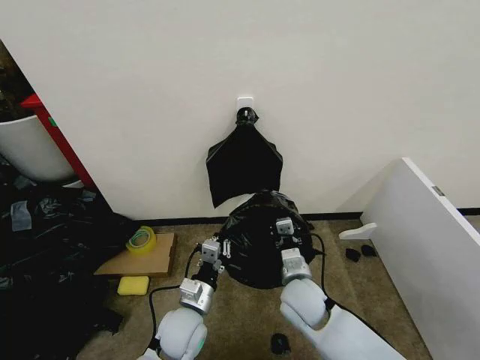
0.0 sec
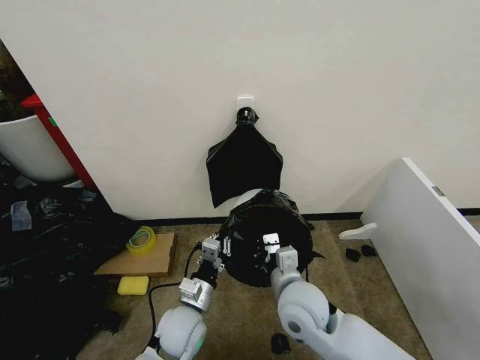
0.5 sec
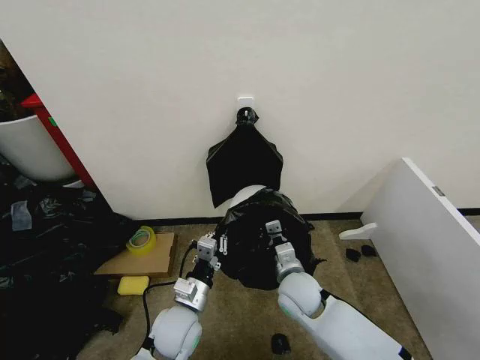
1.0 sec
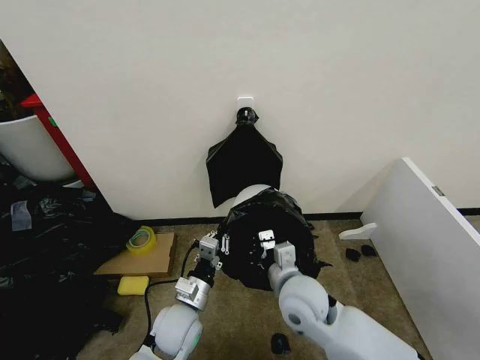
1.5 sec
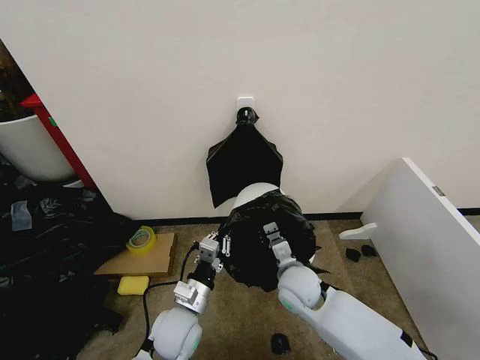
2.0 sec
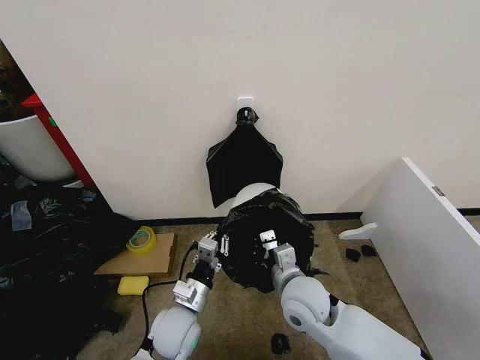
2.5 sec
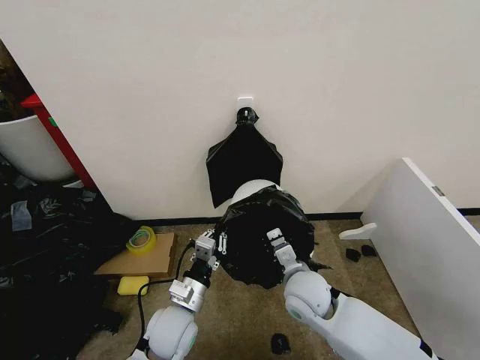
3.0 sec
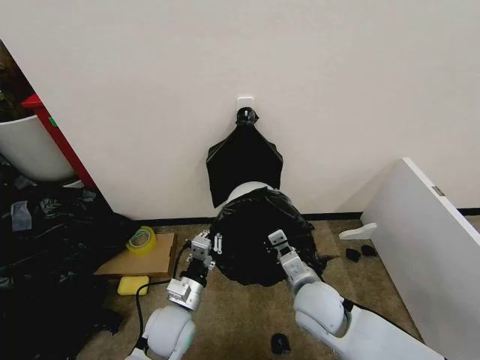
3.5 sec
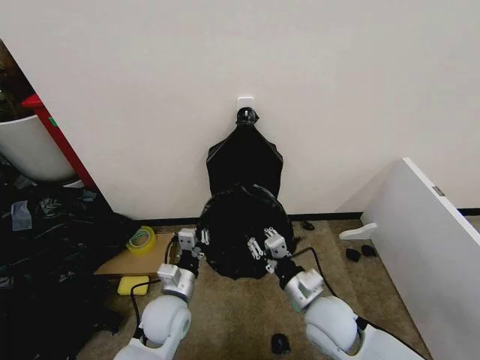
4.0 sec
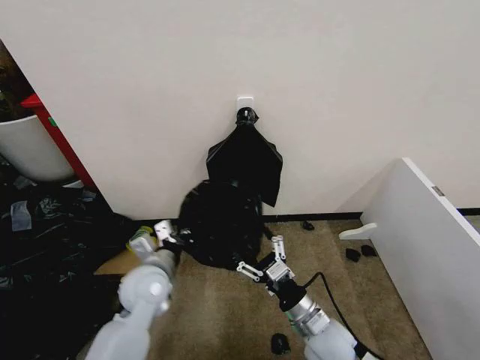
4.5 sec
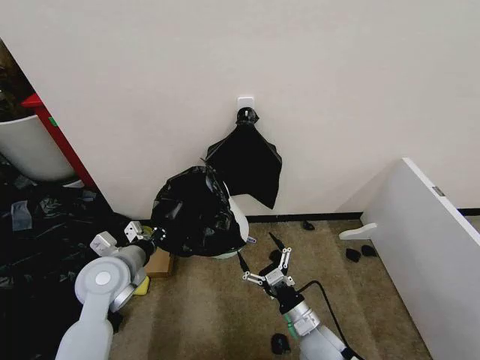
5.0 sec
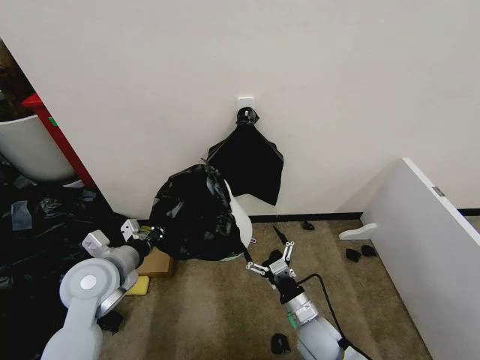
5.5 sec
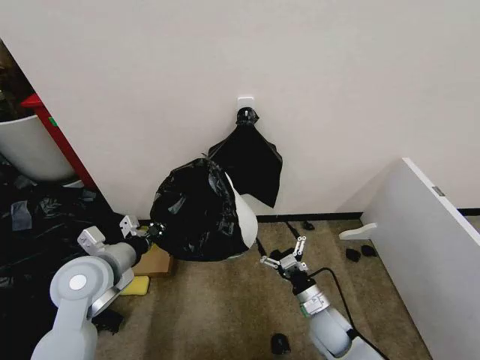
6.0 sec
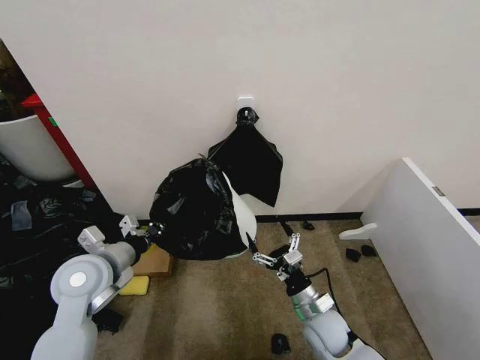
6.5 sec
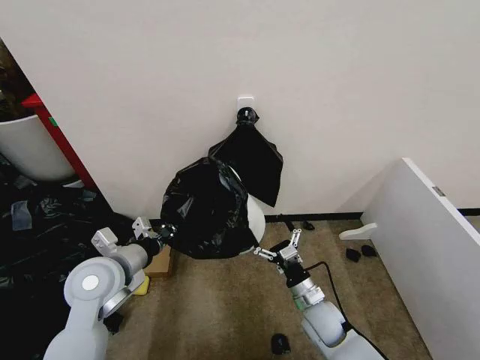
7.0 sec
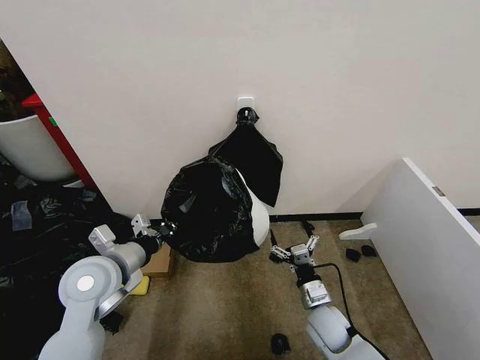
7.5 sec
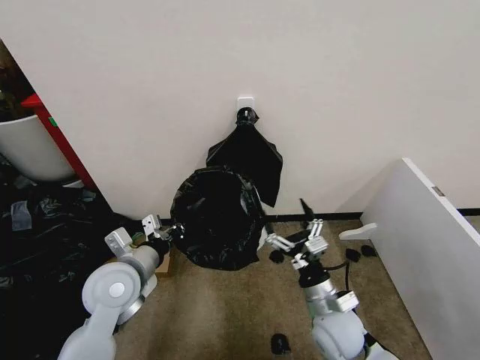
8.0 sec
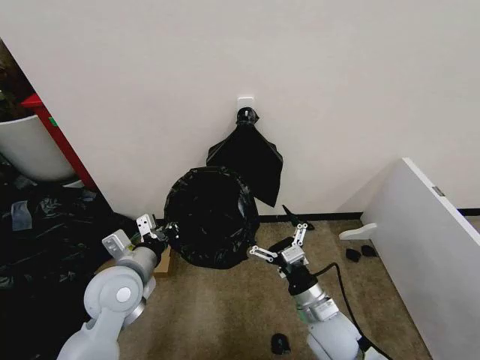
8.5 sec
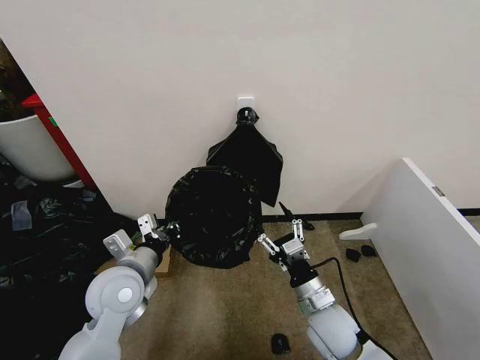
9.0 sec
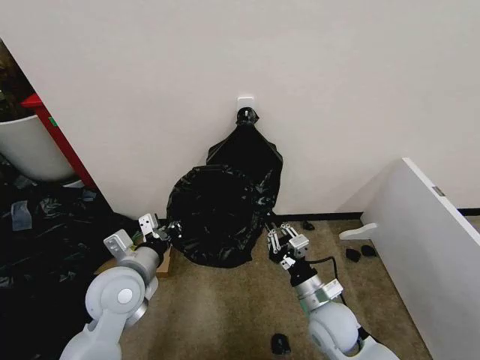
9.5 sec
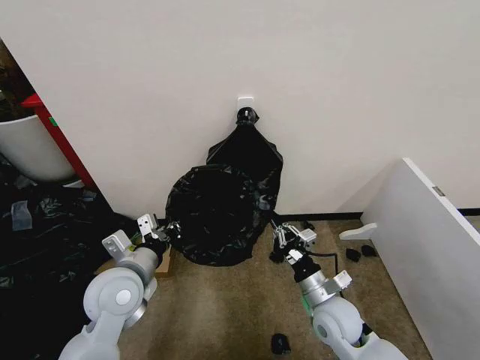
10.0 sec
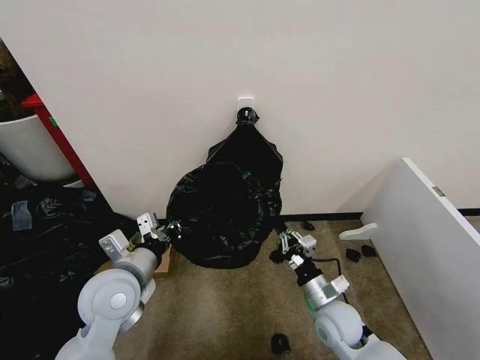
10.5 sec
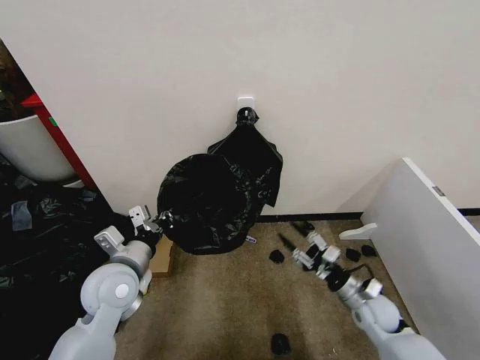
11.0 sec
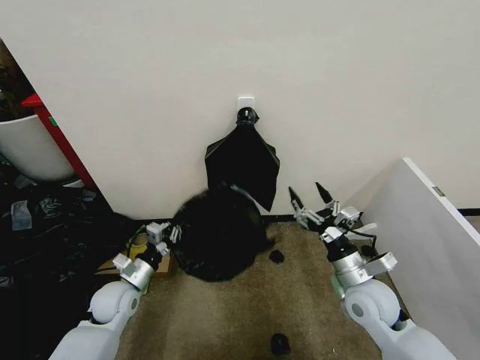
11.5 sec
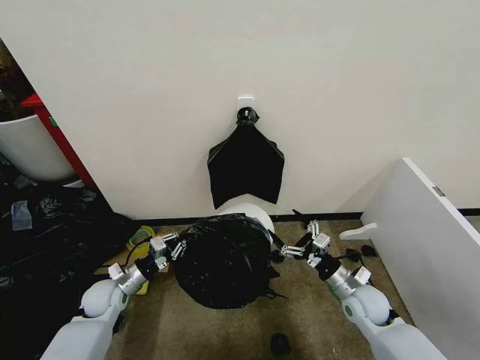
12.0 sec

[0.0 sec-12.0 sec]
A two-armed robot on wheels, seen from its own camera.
Task of the whole recording: Place the garbage bag over the trash bin.
0.0 sec to 2.0 sec: The right gripper goes up and down, roughly 10 cm each way, reversing 3 times.
2.0 sec to 4.0 sec: The right gripper shifts roughly 10 cm backward.
4.0 sec to 6.0 sec: The right gripper shifts approximately 15 cm downward, and opens its fingers. Meanwhile the left gripper travels upward and to the left by about 20 cm.
6.0 sec to 8.0 sec: The right gripper moves upward, approximately 10 cm.
8.0 sec to 10.0 sec: The right gripper closes up.
10.0 sec to 12.0 sec: The right gripper heads to the right, covering roughly 10 cm, and opens up, while the left gripper heads downward and to the left, covering about 20 cm.

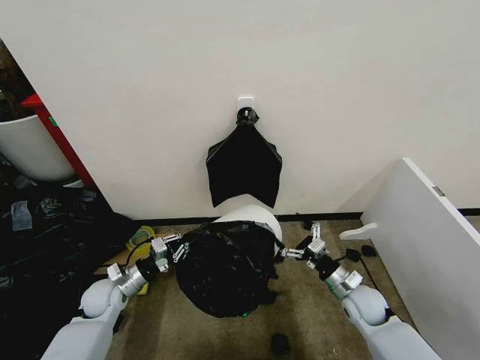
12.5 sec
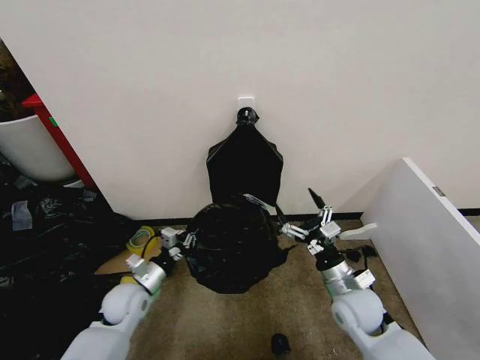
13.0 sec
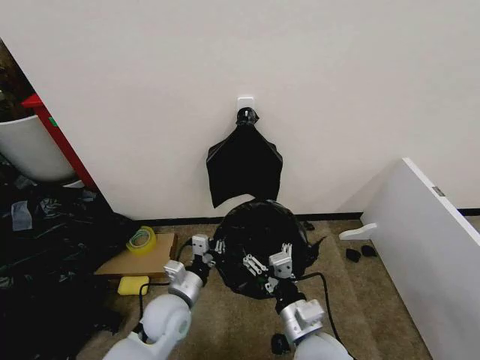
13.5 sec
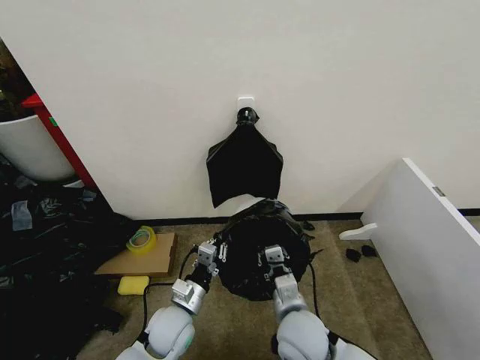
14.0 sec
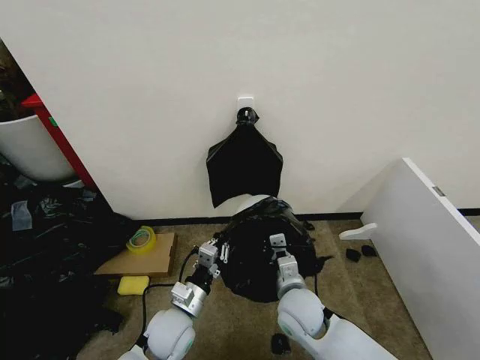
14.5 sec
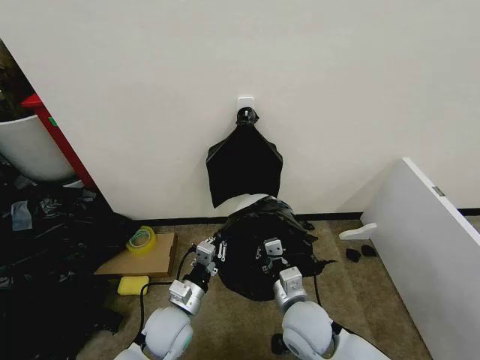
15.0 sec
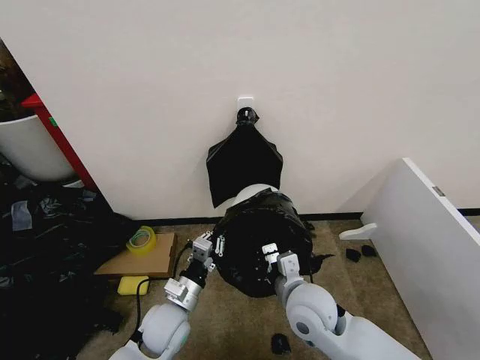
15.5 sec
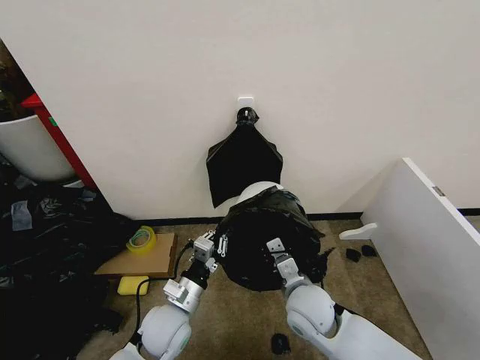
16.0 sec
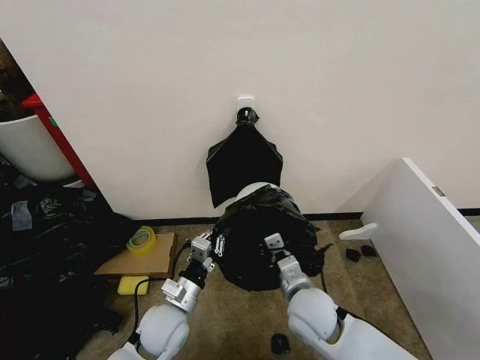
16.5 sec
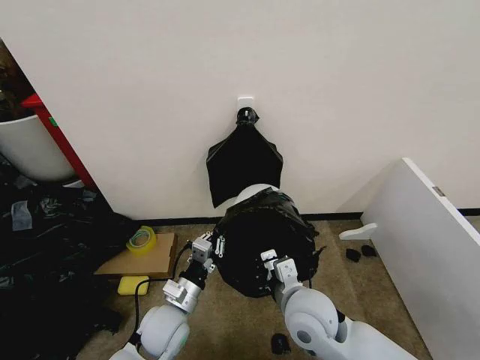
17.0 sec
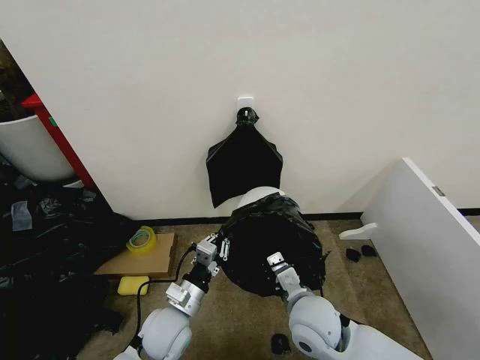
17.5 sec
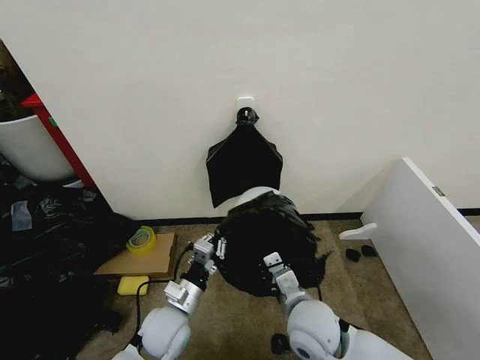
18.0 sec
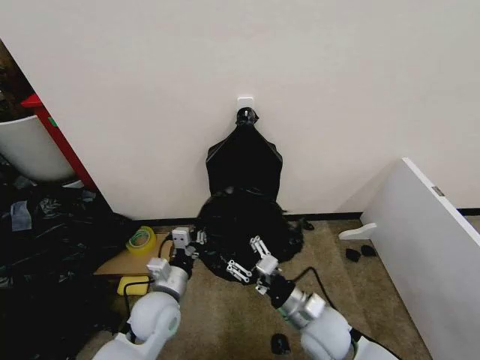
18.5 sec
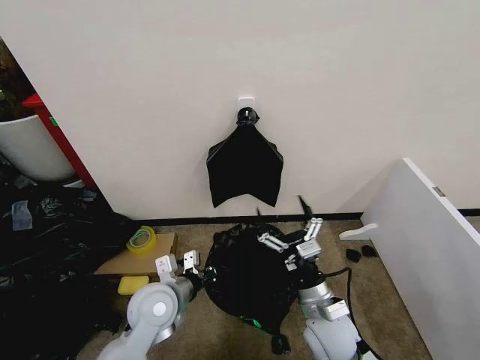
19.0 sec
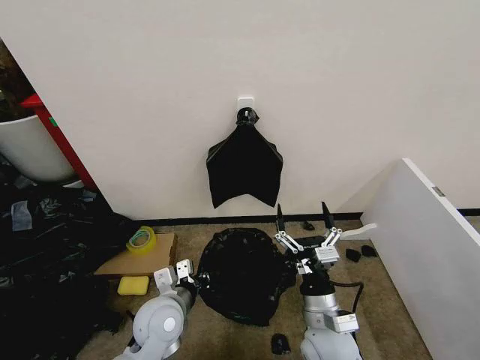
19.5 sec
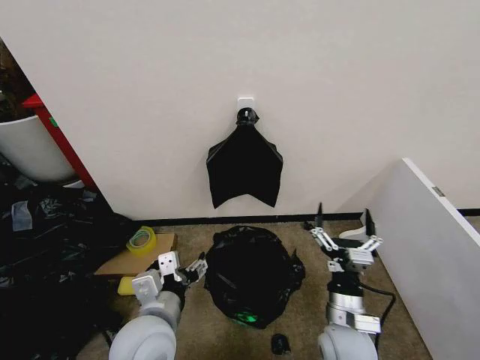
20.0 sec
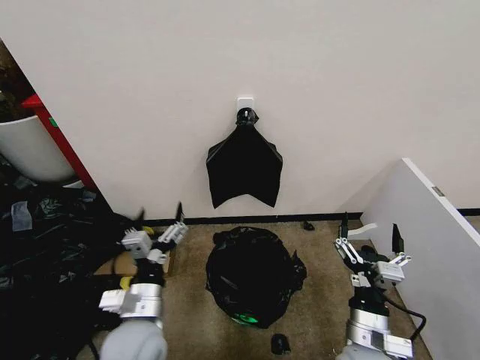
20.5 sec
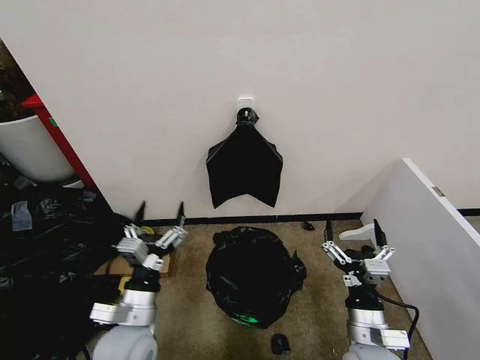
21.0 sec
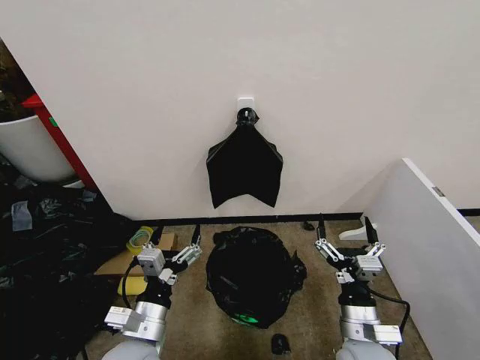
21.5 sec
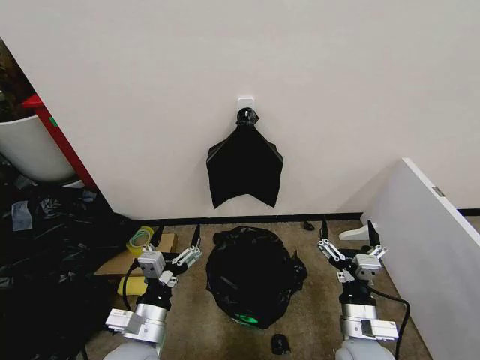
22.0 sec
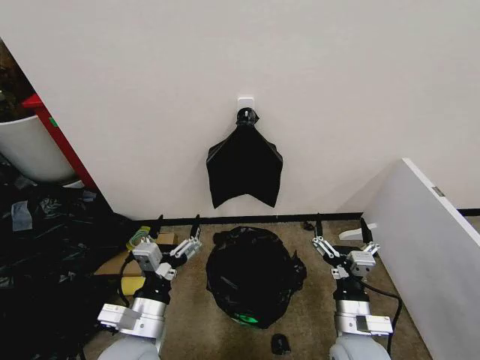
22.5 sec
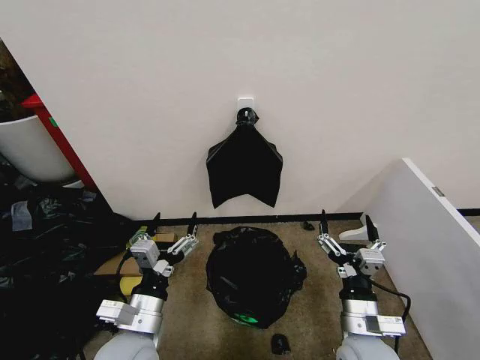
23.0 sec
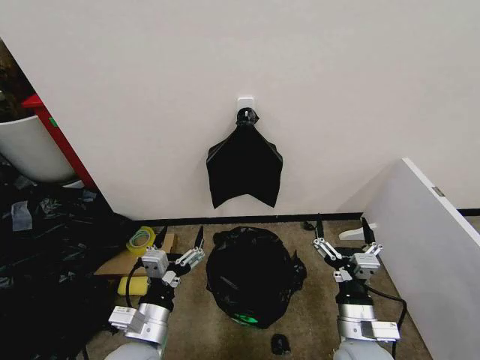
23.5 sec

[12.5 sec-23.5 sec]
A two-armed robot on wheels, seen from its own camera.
Task of the whole recording: Place the garbage bag over the trash bin.
12.5 sec to 14.5 sec: The left gripper goes some 20 cm to the right and backward, while the right gripper is displaced to the left by some 20 cm, and closes.
18.0 sec to 20.0 sec: The left gripper moves upward and backward, roughly 15 cm, and opens its fingers. The right gripper shifts some 5 cm to the right, and opens its fingers.
20.0 sec to 21.5 sec: The left gripper goes roughly 5 cm downward.
21.5 sec to 23.5 sec: There are only small adjustments of the grippers.

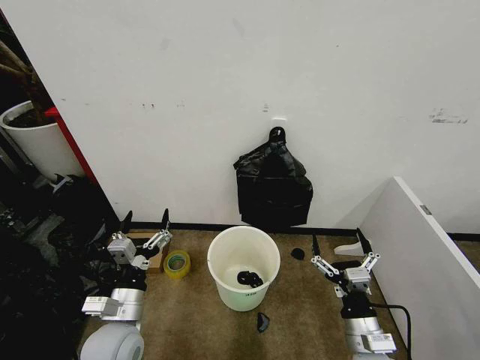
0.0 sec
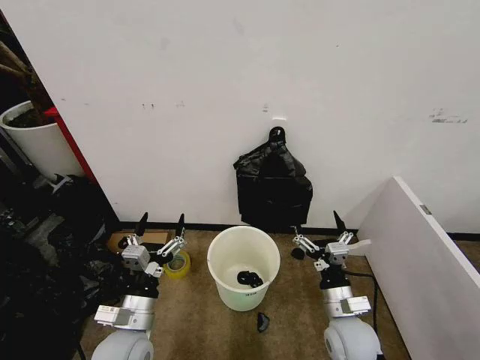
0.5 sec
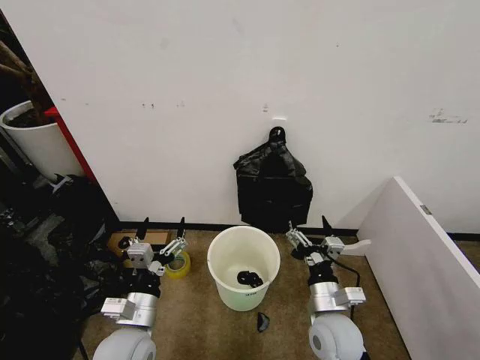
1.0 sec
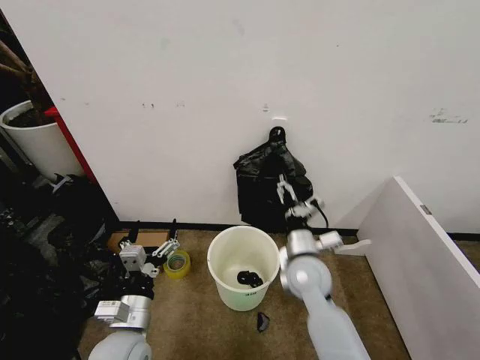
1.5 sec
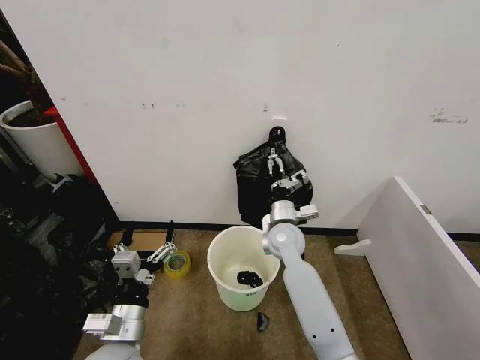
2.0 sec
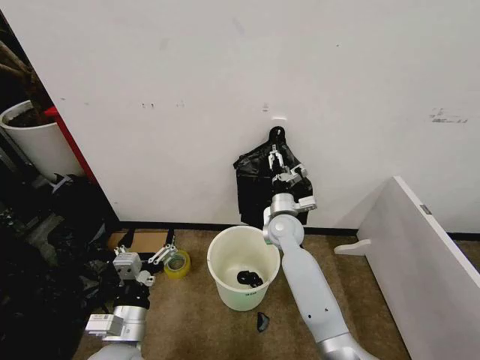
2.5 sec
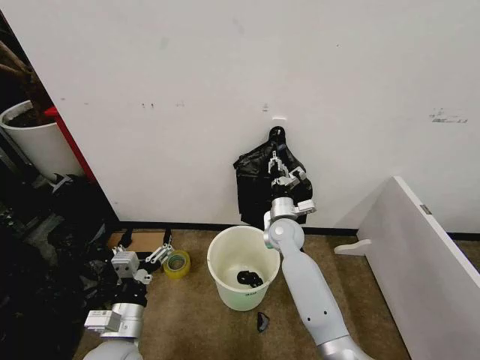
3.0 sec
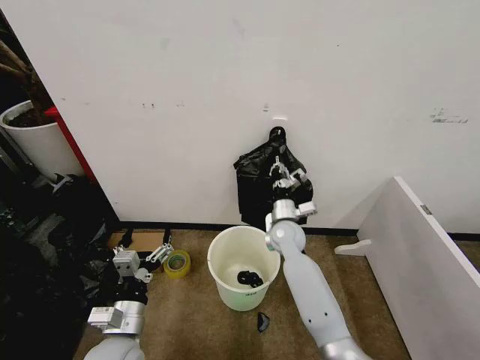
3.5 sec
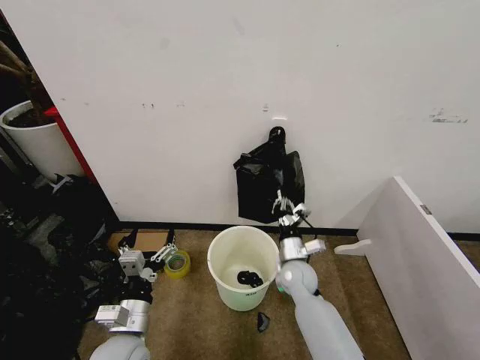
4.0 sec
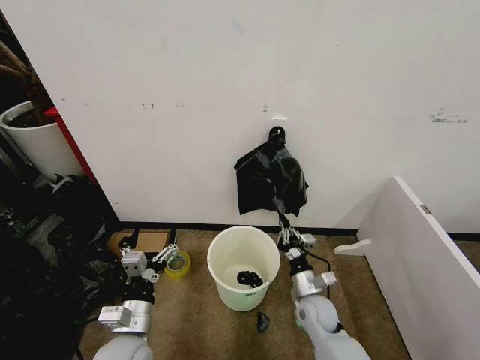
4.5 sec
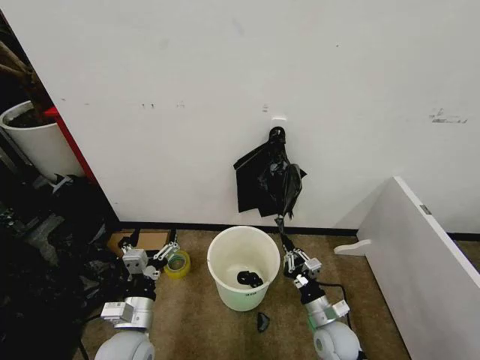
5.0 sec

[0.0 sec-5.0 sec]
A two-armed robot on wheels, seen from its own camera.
Task of the whole recording: Place the garbage bag over the trash bin.
2.5 sec to 5.0 sec: The right gripper travels backward, downward and to the right by roughly 30 cm, and closes its fingers.
